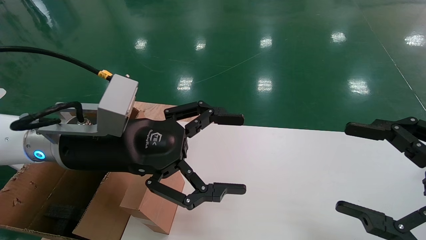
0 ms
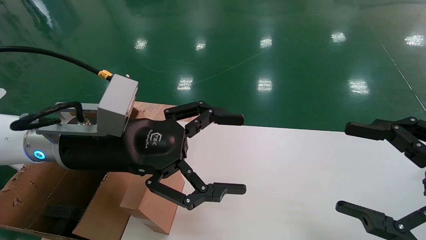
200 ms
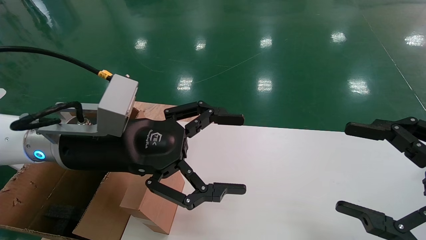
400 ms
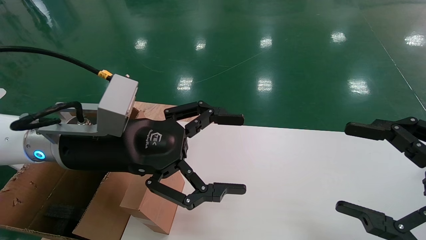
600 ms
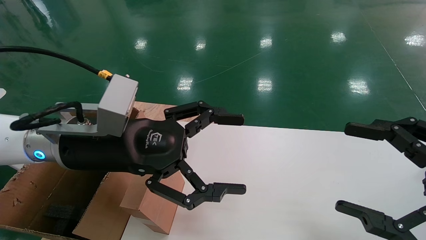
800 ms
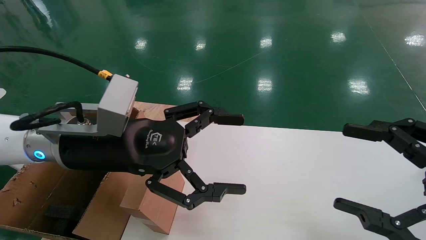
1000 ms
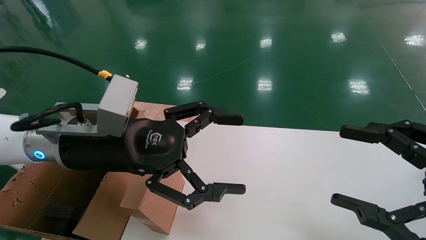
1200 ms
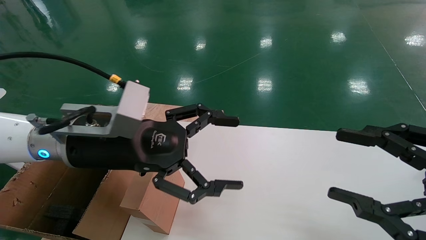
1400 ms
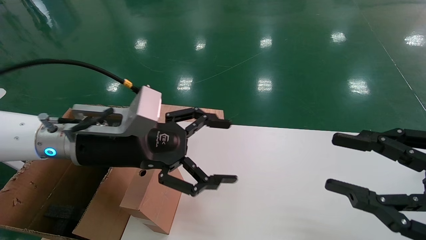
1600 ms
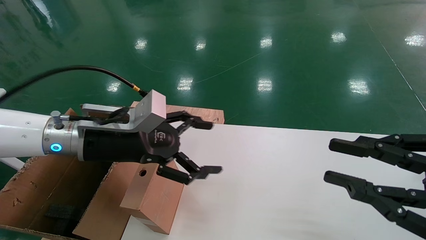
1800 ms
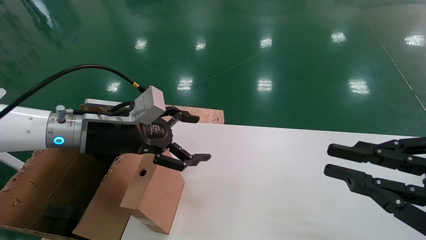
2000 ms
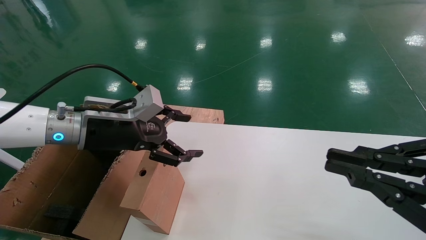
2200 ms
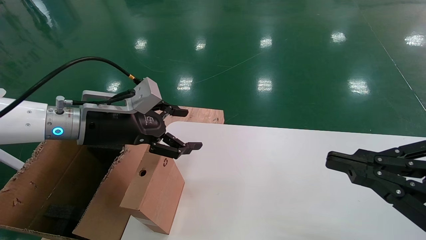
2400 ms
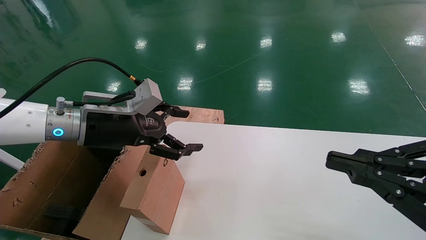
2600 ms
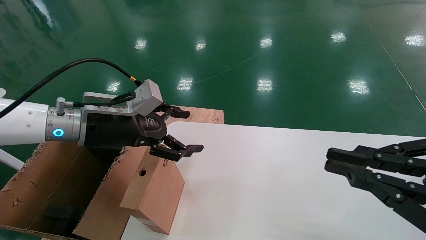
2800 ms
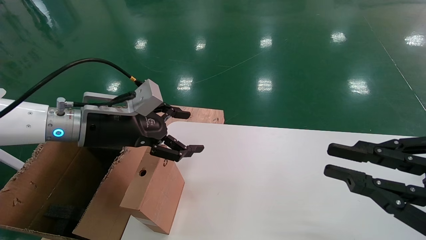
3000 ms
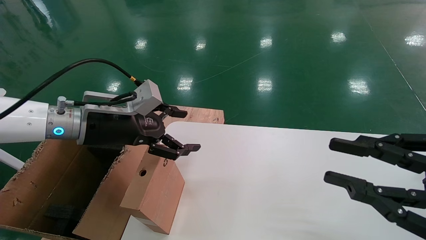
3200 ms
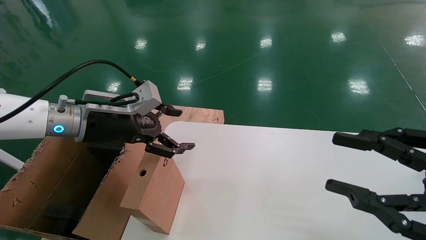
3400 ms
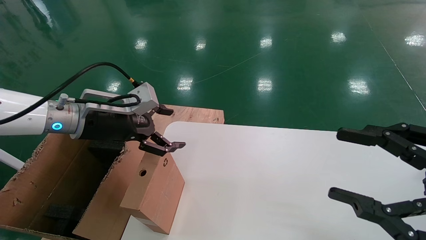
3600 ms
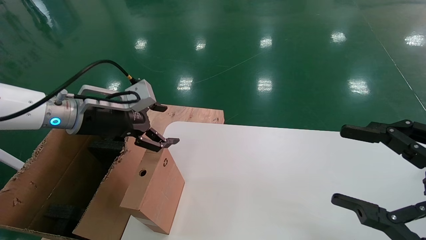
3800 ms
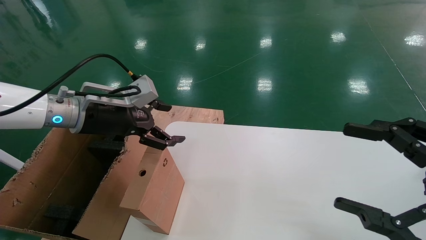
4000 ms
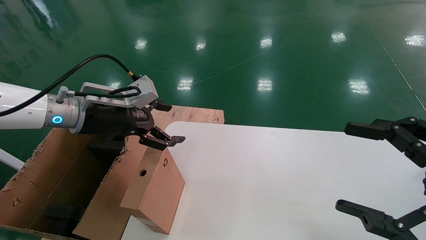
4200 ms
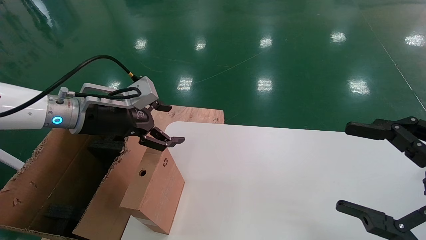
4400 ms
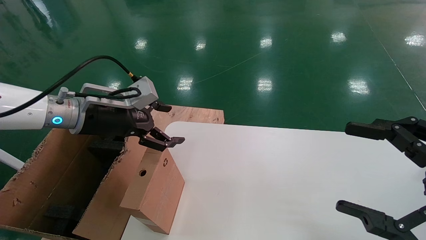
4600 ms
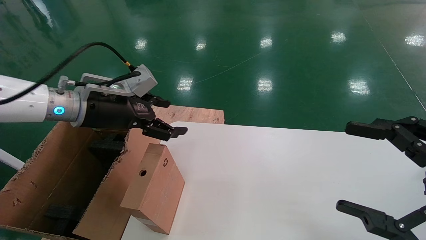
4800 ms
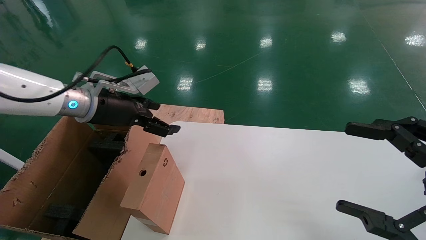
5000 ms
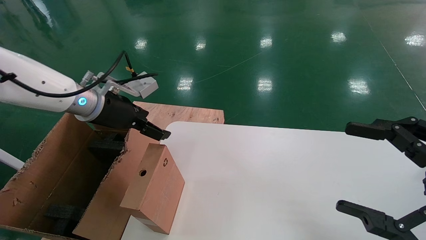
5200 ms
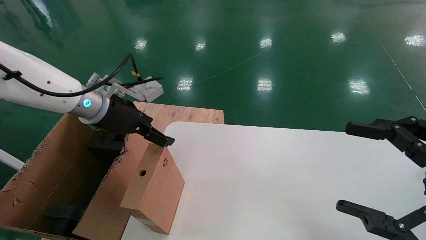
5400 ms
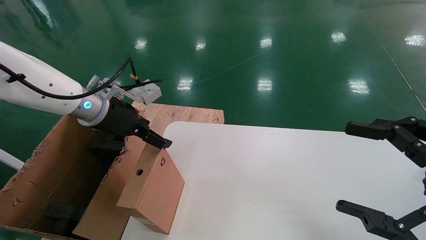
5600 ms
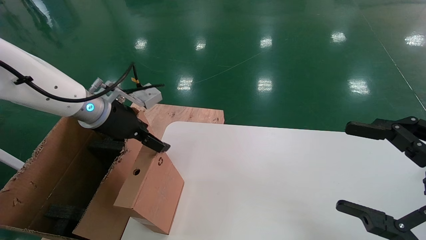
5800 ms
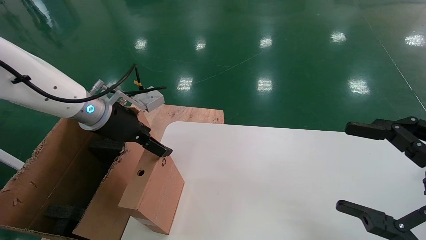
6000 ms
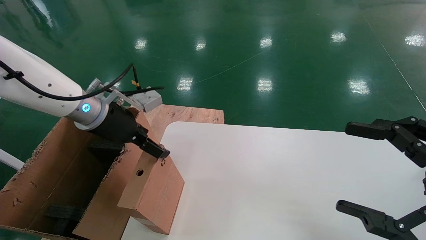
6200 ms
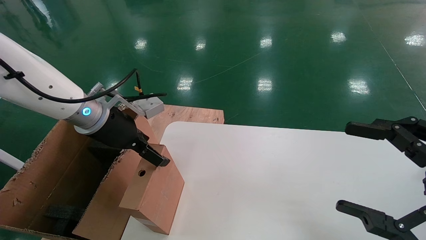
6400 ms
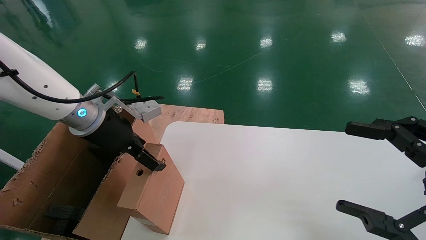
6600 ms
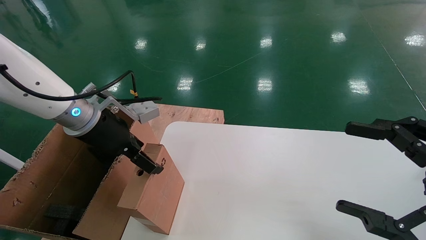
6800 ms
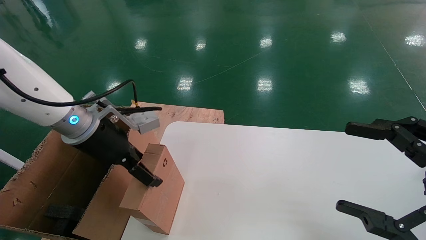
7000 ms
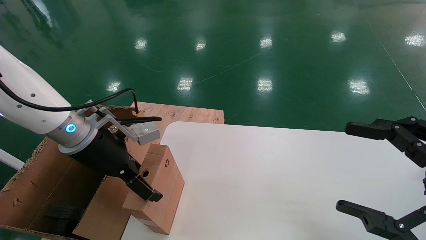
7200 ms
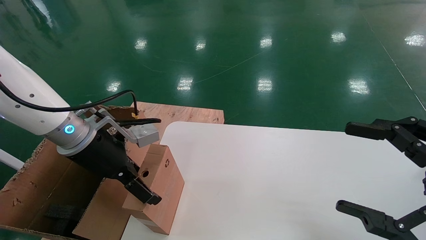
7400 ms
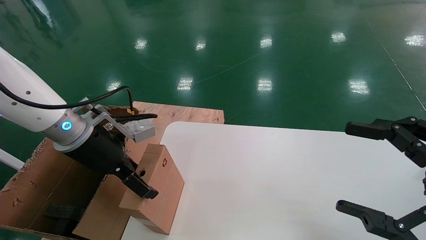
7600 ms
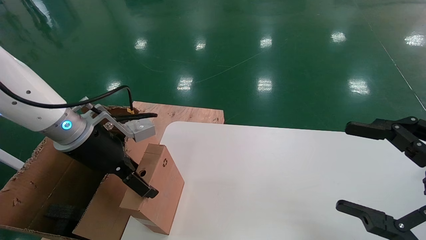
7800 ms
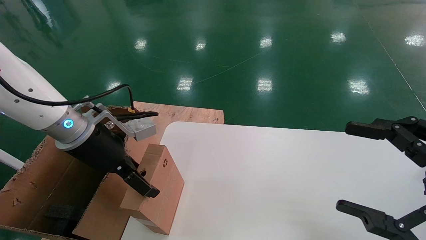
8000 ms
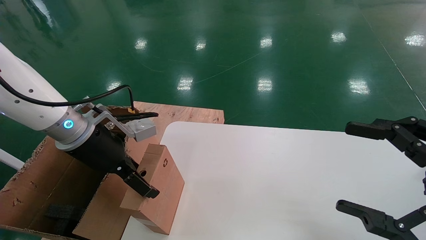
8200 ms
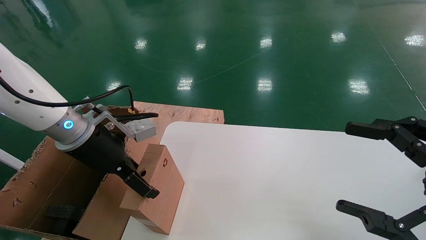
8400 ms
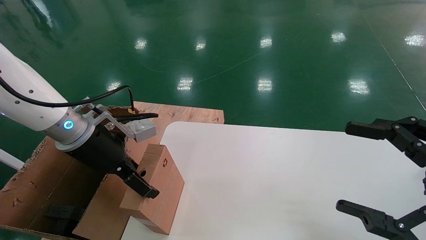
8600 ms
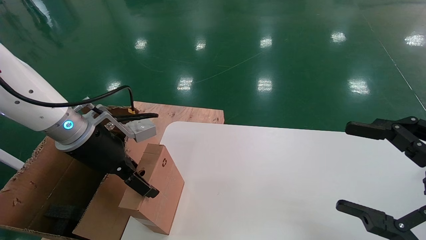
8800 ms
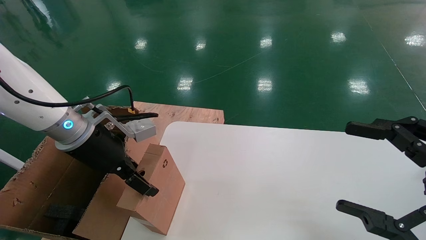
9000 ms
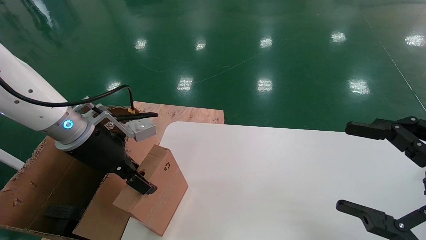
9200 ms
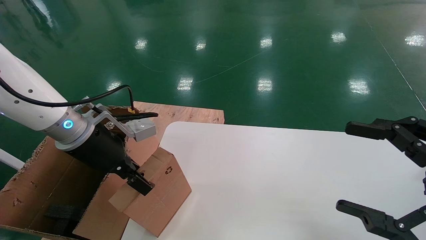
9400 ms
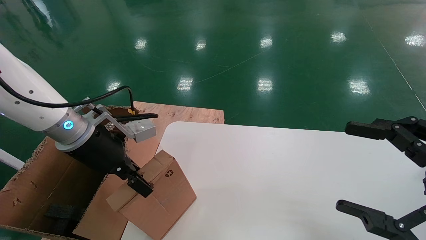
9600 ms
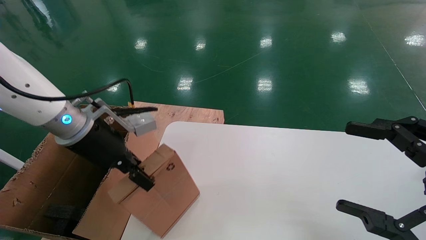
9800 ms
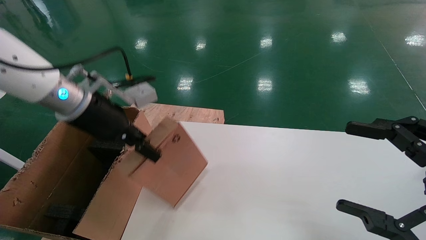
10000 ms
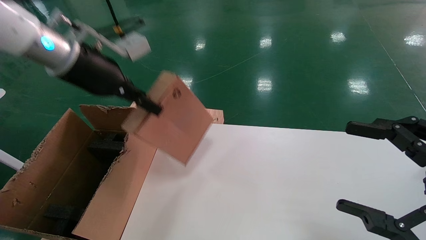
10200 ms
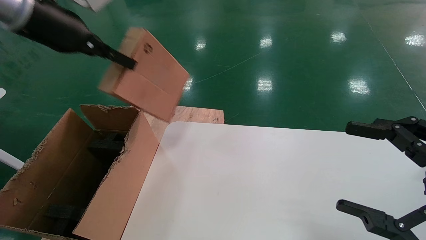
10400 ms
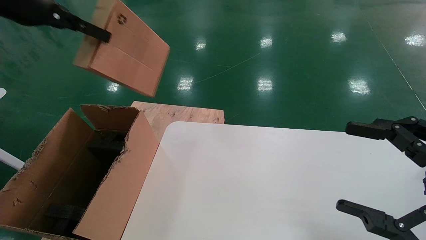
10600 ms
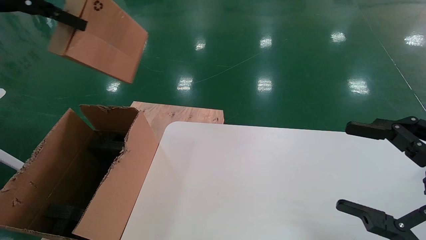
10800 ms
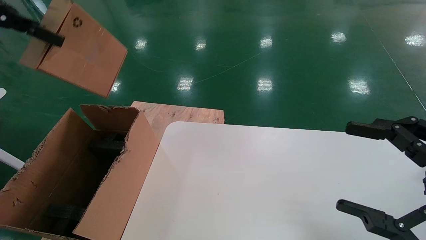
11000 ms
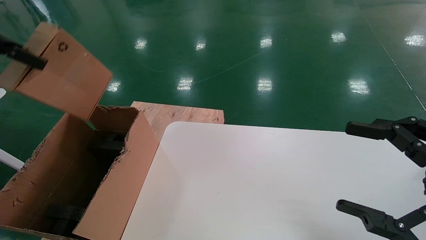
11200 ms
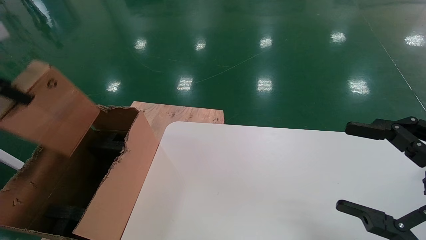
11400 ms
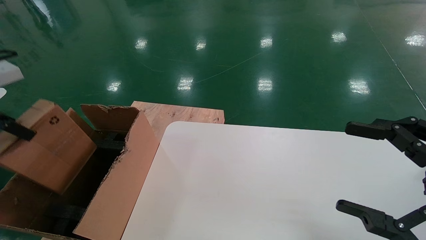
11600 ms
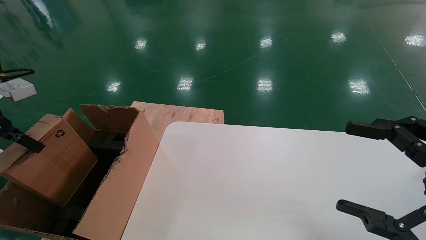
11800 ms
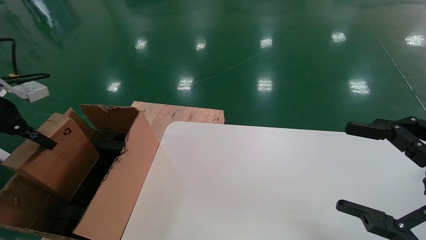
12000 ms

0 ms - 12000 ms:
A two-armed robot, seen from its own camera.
Task of the whole recording: place the small box on the table into the large box on the left.
Step, 1600 ms - 9600 ms: Pick up the mouse and the power cord paper box.
0 ms - 1600 ms: The right gripper closes up.
1600 ms - 3000 ms: The right gripper closes its fingers; the left gripper moves approximately 5 cm.
3000 ms - 4400 ms: The right gripper opens.
6000 ms - 7600 ms: The left gripper heads backward, covering approximately 5 cm.
7600 ms - 9000 ms: Both grippers stay put.
9000 ms - 10400 ms: The left gripper heads upward, covering about 20 cm, and closes its fingers.
10400 ms - 12000 ms: The left gripper shifts roughly 20 cm to the left and downward.

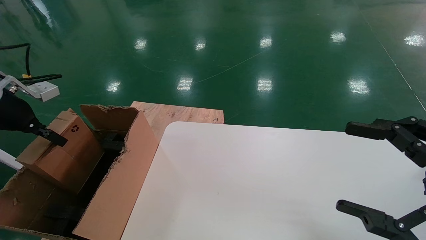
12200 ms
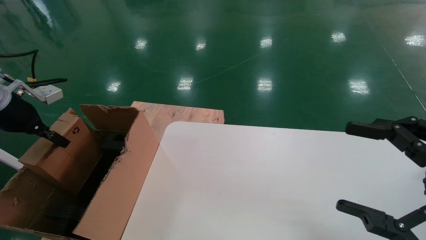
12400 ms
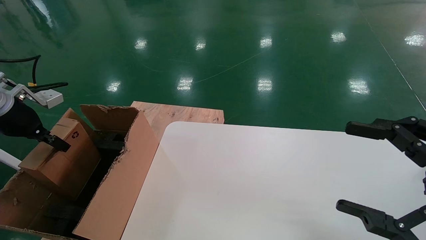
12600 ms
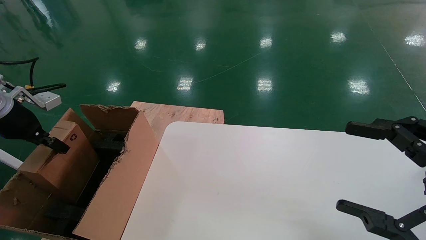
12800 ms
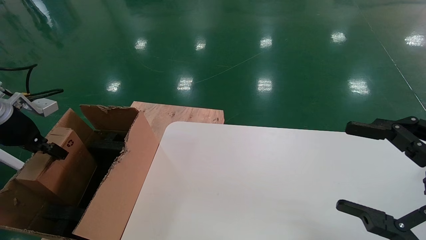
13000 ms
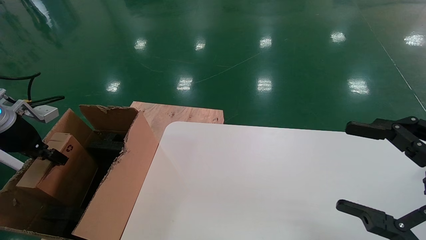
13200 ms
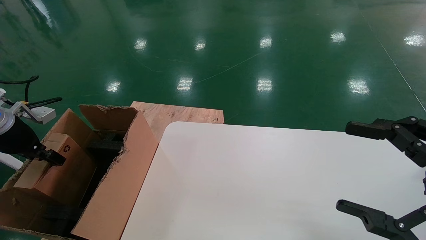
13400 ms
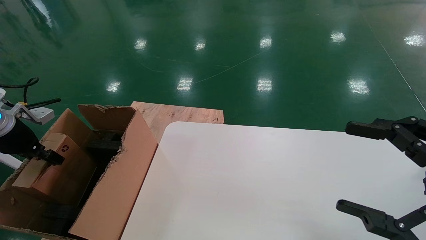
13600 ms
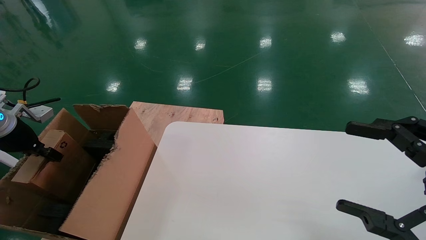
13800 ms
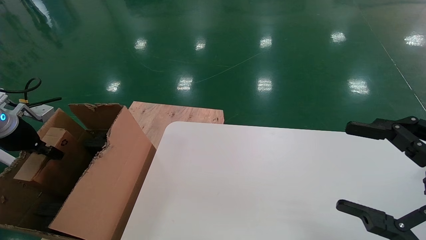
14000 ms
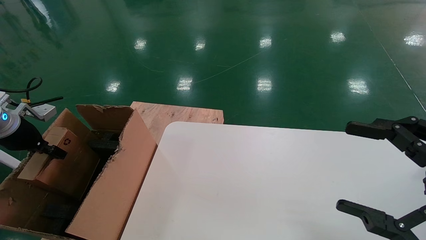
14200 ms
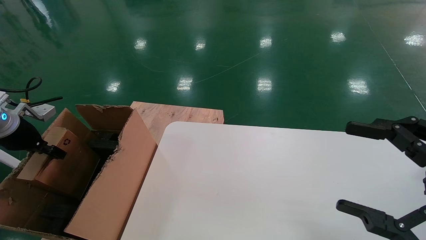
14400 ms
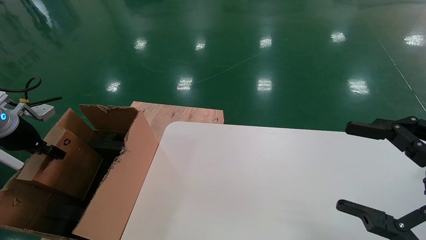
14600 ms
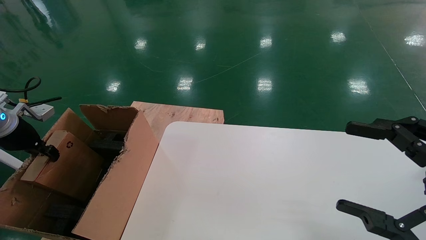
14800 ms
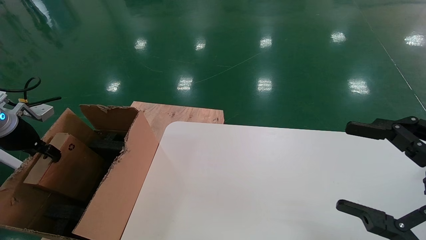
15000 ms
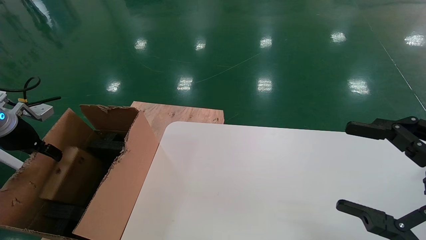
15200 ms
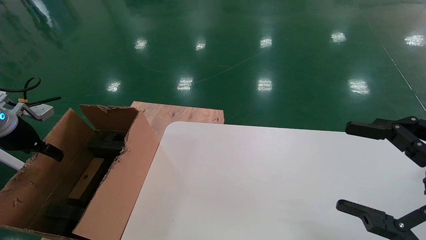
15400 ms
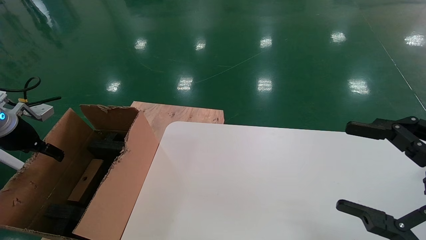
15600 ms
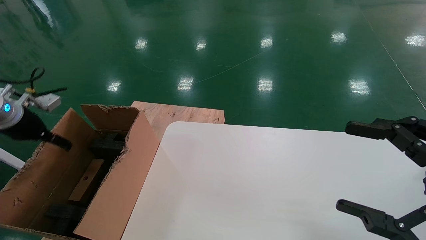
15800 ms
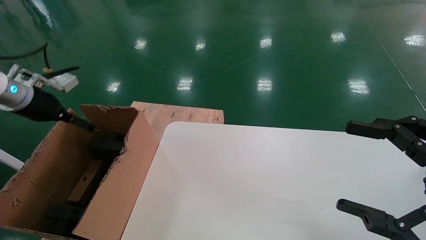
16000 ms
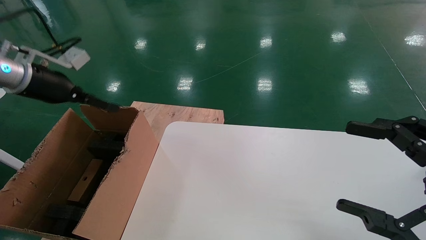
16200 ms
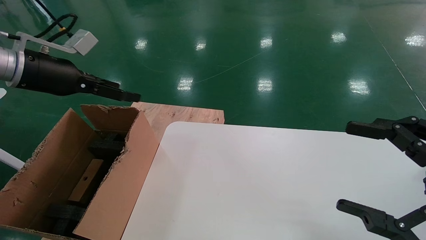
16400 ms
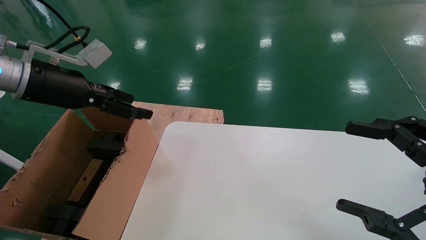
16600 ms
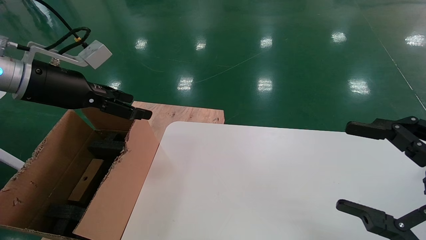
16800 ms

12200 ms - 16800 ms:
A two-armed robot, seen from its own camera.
Task of the whole recording: place the small box on the table into the large box on the left.
Step, 12200 ms - 15400 ms: Place the mouse and the power cord paper box into the container.
12200 ms - 13800 ms: The left gripper shifts approximately 5 cm downward.
13800 ms - 15200 ms: The left gripper opens up.
15200 ms - 16800 ms: The left gripper travels to the right and upward by approximately 20 cm, and opens up.
